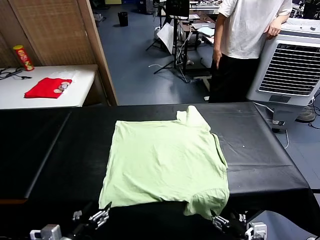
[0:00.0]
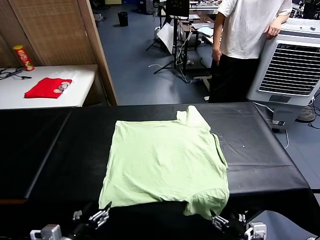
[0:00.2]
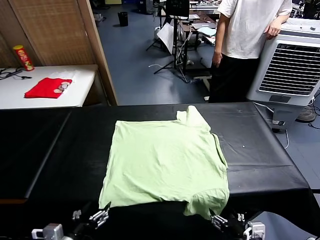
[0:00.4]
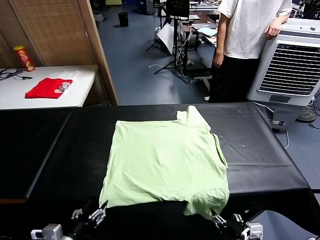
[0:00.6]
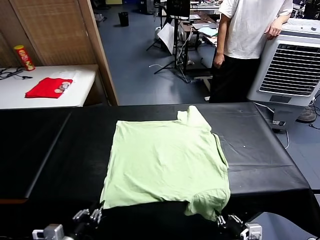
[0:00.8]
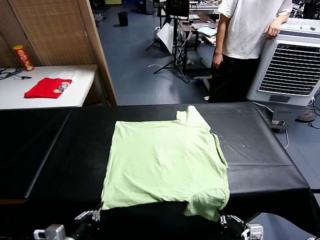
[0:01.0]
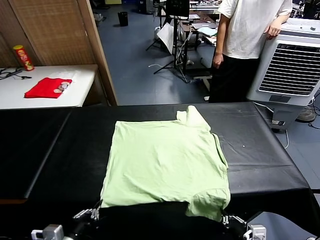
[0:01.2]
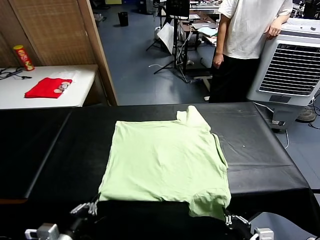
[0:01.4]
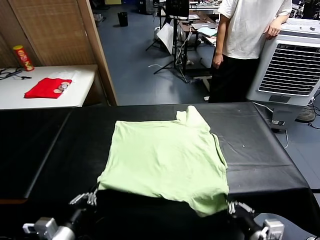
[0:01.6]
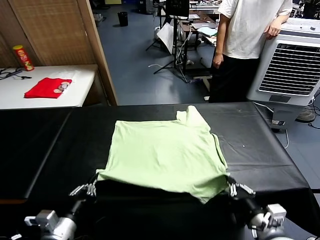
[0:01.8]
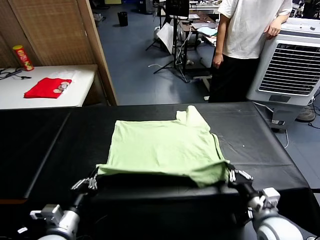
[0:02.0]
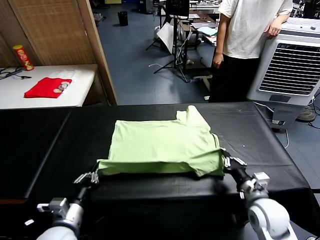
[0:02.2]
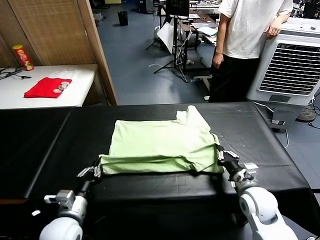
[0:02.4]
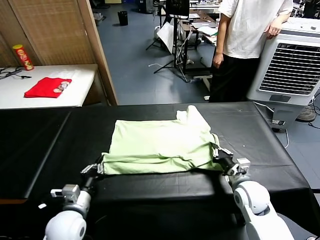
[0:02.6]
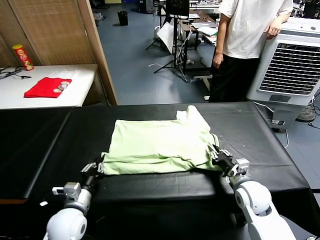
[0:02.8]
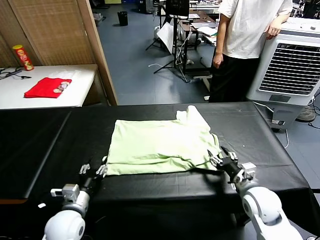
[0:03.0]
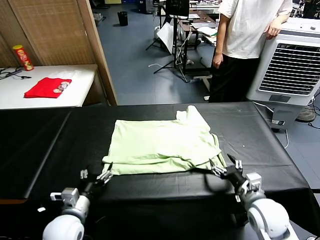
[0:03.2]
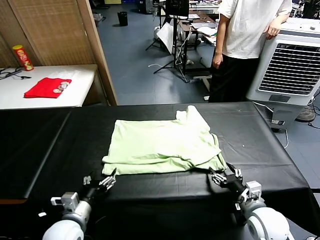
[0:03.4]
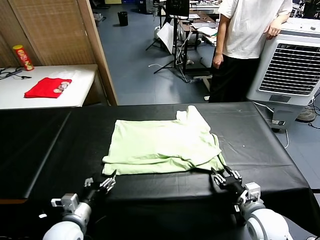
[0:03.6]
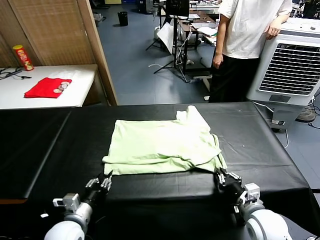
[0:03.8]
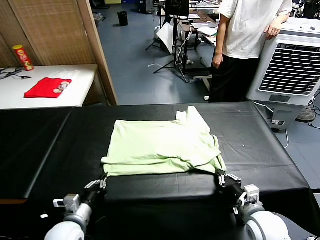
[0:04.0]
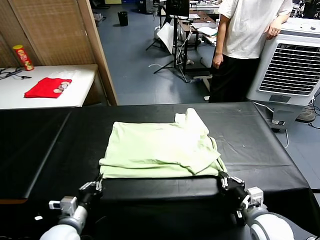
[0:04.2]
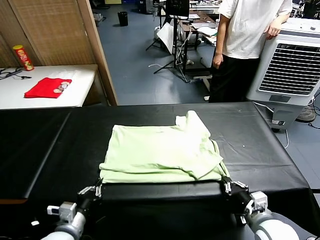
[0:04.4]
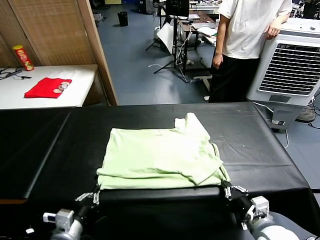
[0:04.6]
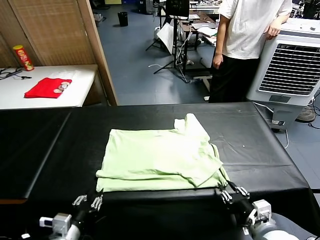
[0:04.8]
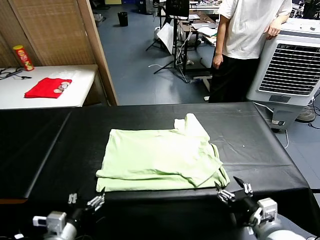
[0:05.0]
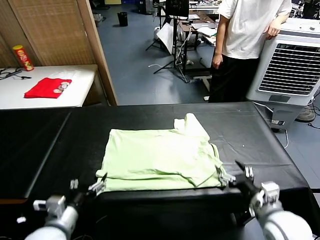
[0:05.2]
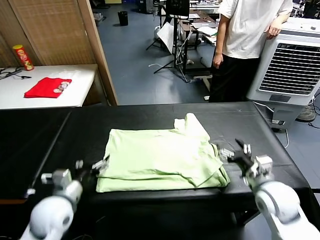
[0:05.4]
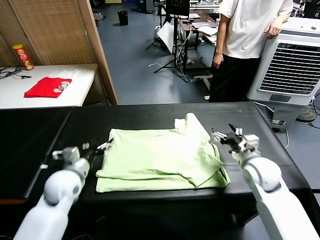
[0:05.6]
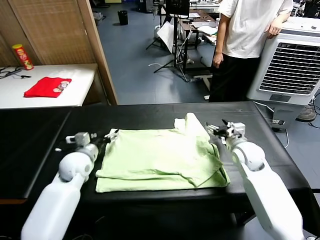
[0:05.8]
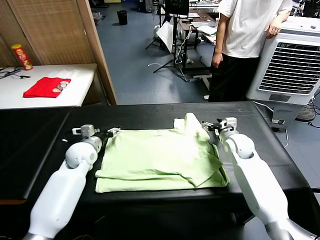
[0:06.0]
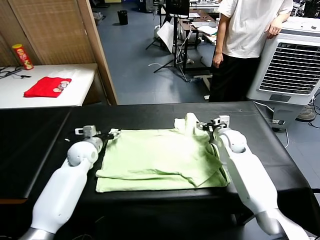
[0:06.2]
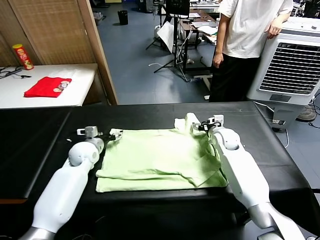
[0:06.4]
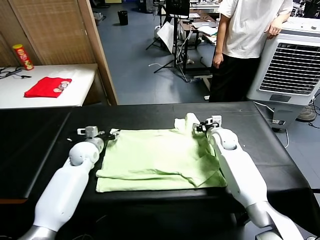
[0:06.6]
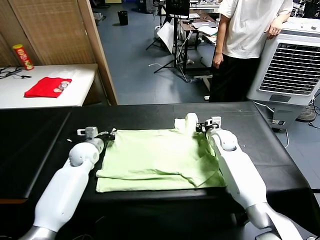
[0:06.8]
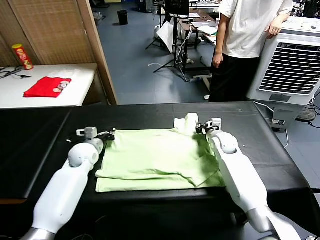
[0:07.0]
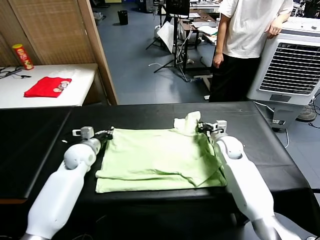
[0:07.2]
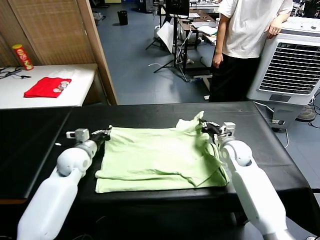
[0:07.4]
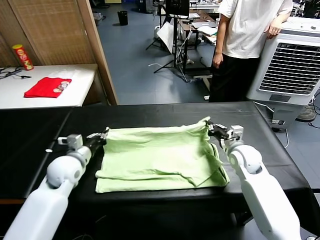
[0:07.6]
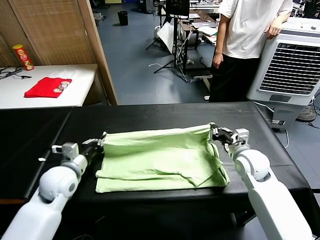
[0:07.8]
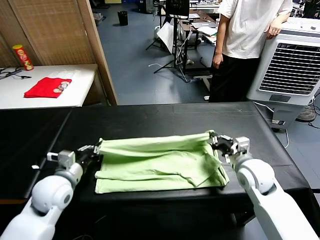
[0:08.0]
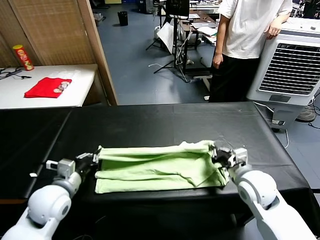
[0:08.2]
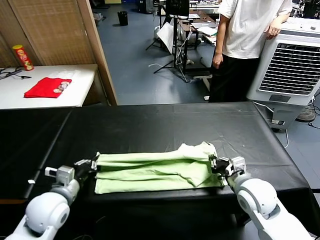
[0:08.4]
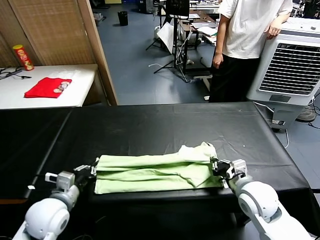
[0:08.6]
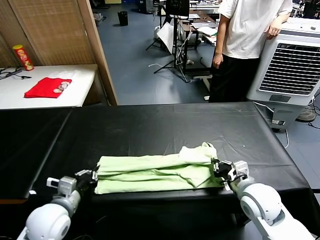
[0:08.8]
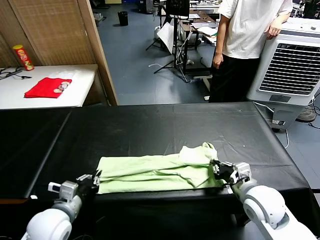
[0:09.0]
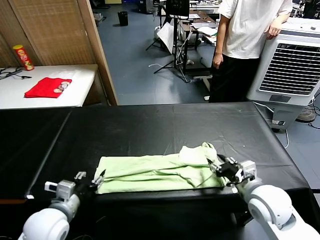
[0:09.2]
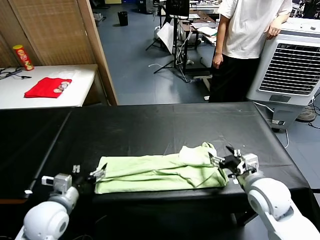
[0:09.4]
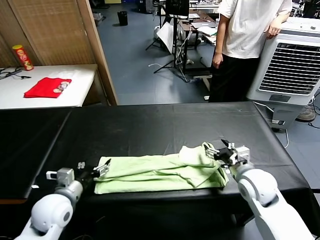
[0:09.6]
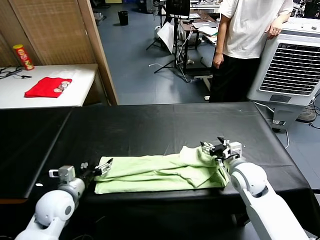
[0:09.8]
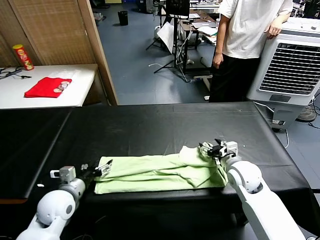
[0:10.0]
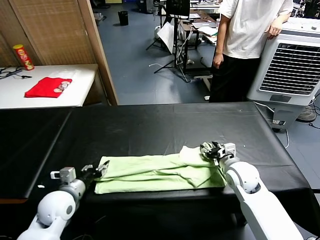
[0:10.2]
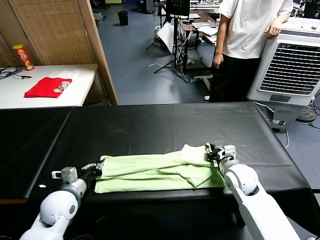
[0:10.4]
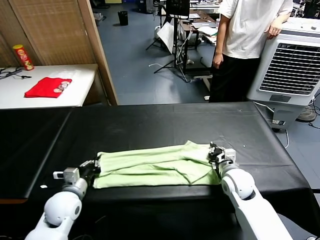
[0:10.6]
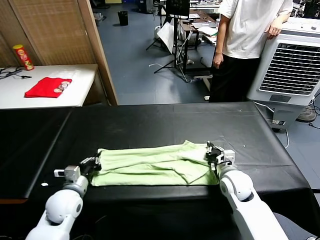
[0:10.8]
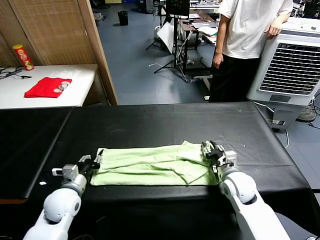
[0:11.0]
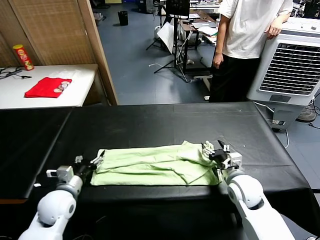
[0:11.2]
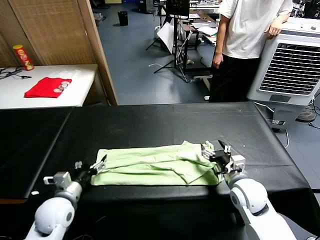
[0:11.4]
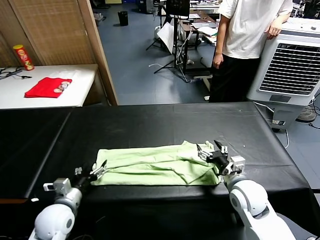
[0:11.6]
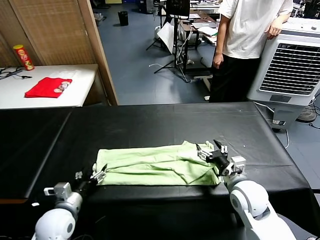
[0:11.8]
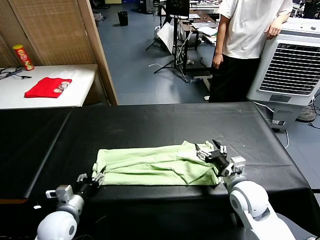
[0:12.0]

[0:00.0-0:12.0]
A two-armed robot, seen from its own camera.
Task of the whole recording: fold and organize the clothes.
Step, 0:00.0 to 0:01.0: use both grippers simultaneously to clamp the lower edge of the clothing fabric.
Step, 0:01.2 to 0:02.8: use both grippers to drag the lower edge of the fabric forward and fold it over the upper edge.
Step, 0:03.0 to 0:04.8: Drag the clothes downward with both gripper.
Step, 0:05.0 to 0:06.8: use both grippers simultaneously to clamp the upper edge of the clothing fabric.
Step, 0:07.0 to 0:09.2: use both grippers to drag the upper edge of the fabric backward and fold it over the lower edge.
0:01.6 to 0:03.0: The right gripper goes approximately 10 cm forward, and opens; the left gripper goes roughly 10 cm forward and downward, and opens.
0:03.0 to 0:04.4: The two grippers go approximately 5 cm backward. The left gripper closes. Meanwhile the right gripper closes its fingers.
0:04.4 to 0:06.0: Both grippers travel together forward, roughly 30 cm. The right gripper opens its fingers. Meanwhile the left gripper opens its fingers.
0:06.0 to 0:07.6: The two grippers go some 10 cm backward. The right gripper closes, while the left gripper closes up.
0:07.6 to 0:09.0: The two grippers go about 15 cm backward. The right gripper opens up.
0:09.0 to 0:10.4: The left gripper shifts about 5 cm forward, and opens, then closes once more. The right gripper shifts approximately 15 cm forward and downward, and closes up.
0:10.4 to 0:12.0: The two grippers go approximately 5 cm backward. The right gripper opens its fingers. Meanwhile the left gripper opens.

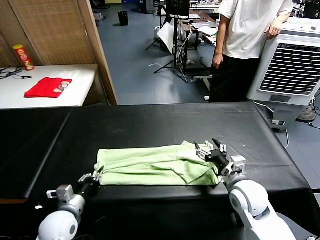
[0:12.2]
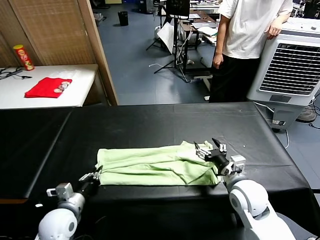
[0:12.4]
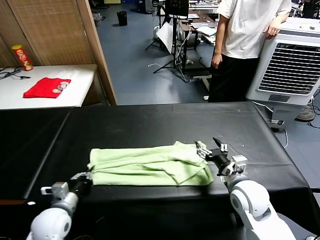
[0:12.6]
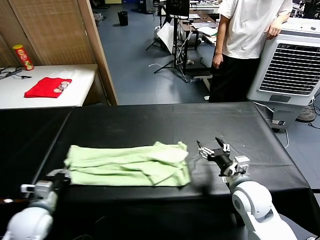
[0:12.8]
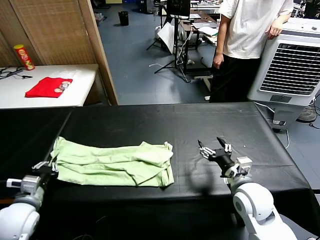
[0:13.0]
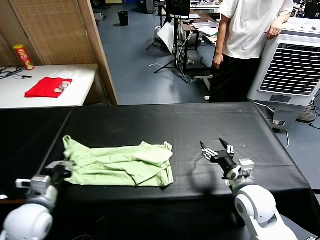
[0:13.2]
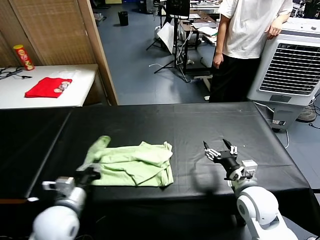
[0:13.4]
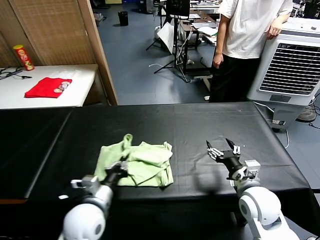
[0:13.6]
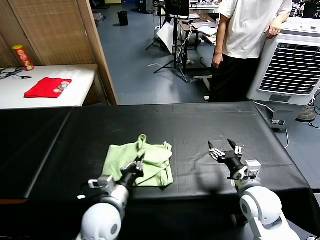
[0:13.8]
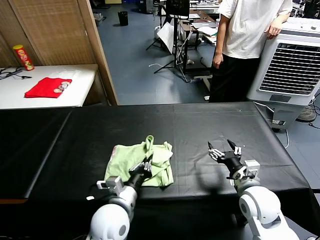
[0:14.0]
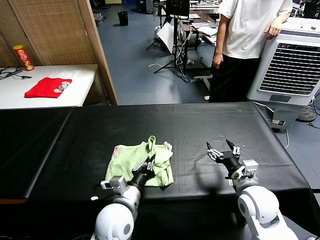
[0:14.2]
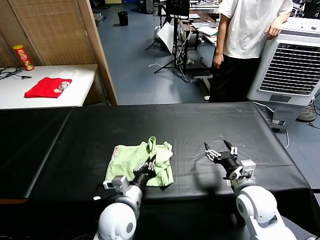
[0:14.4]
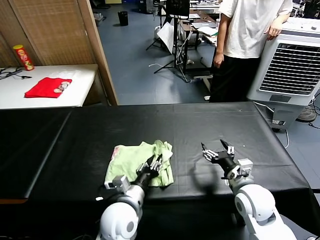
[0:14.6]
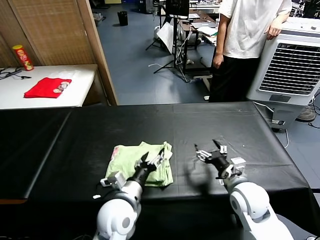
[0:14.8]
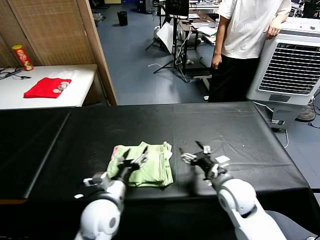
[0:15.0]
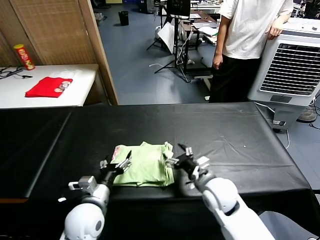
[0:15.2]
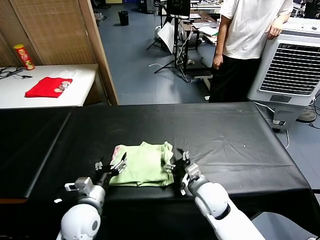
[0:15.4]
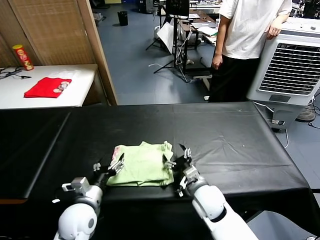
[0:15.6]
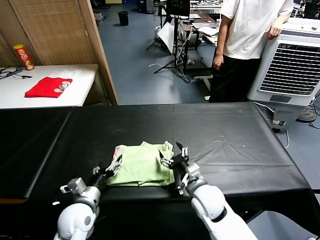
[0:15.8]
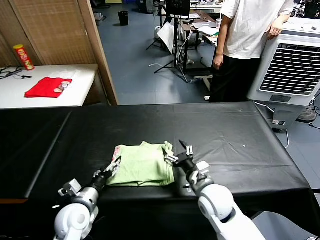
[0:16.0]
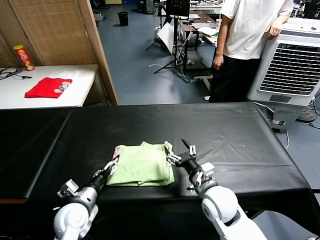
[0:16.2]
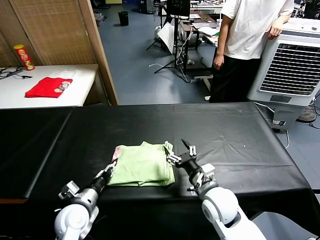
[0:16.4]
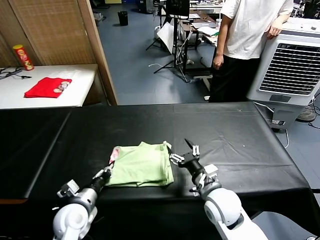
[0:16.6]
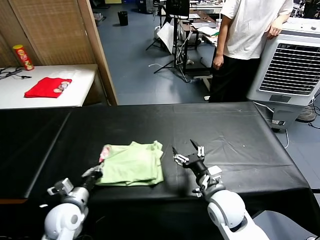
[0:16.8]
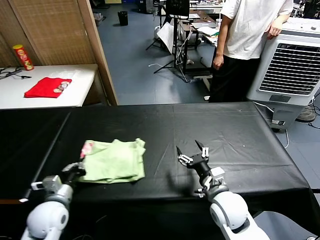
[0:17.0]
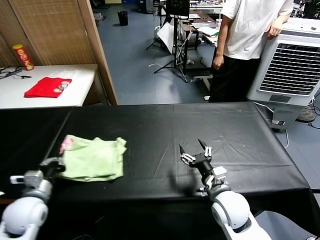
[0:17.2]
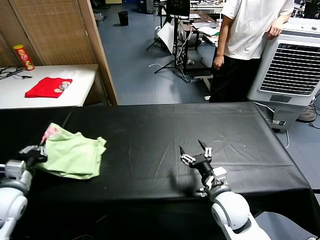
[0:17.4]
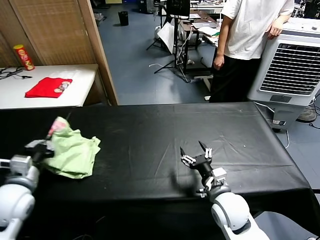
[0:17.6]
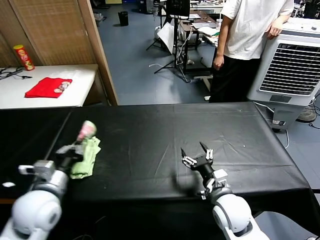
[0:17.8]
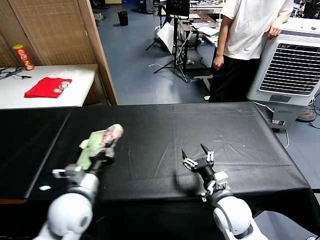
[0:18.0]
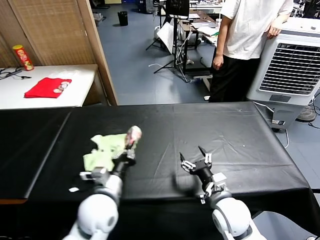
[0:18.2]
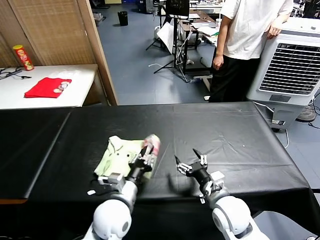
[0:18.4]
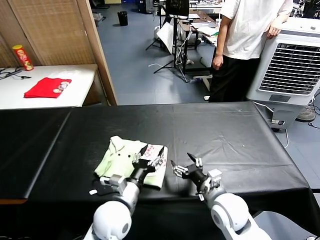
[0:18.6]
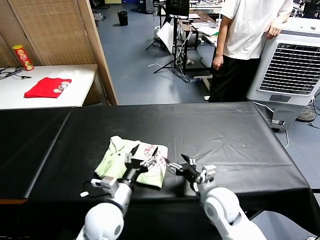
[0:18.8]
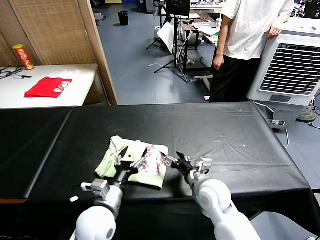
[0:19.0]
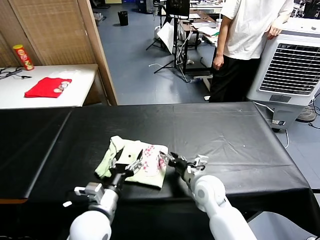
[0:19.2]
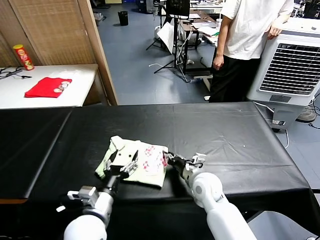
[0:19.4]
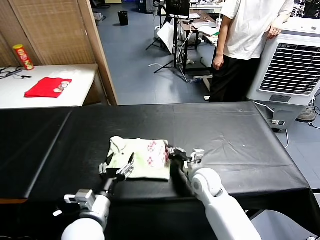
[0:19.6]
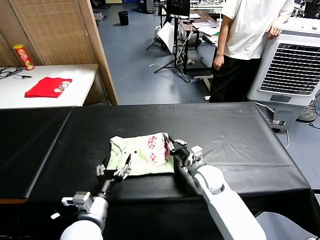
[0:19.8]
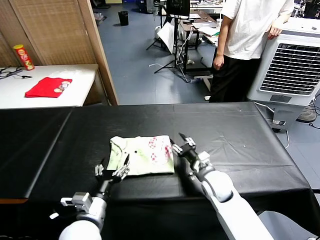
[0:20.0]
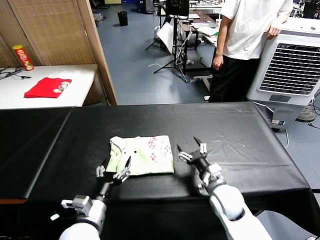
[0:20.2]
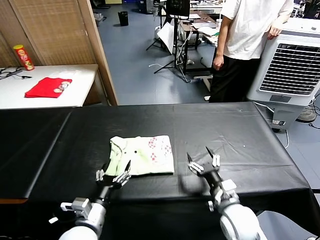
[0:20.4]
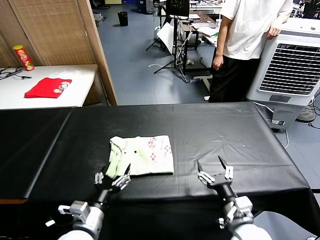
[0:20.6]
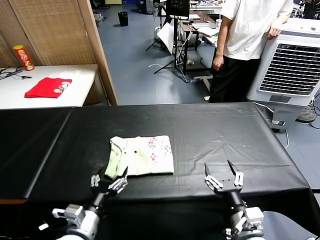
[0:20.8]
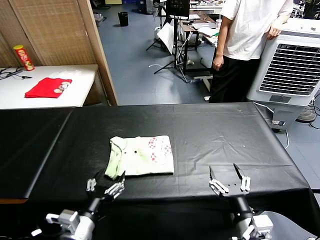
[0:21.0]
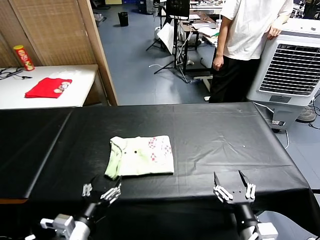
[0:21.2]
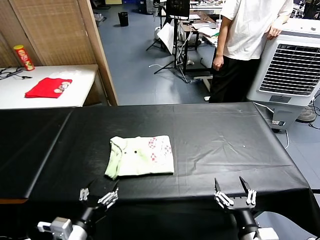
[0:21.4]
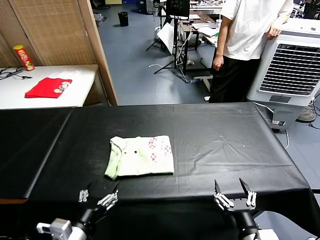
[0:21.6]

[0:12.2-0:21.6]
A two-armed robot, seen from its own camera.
Task of the whole recording: fold and organize the clothes.
Step, 0:12.6 to 0:14.8: use the left gripper to drag the left edge of the fabric to the left and folds it over the right edge.
Step, 0:15.0 to 0:18.6: Flip the folded clothes over with left gripper.
Step, 0:18.8 to 0:19.8: Drag the clothes to the center of the table.
0:12.2 to 0:13.8: The left gripper goes about 15 cm to the right and upward.
0:13.8 to 0:15.4: The right gripper shifts some 15 cm to the left and downward; the left gripper moves to the left, approximately 5 cm, and opens.
0:15.4 to 0:17.0: The right gripper ends up approximately 5 cm from where it was, while the left gripper is displaced to the left by approximately 10 cm, and closes.
0:17.0 to 0:18.4: The left gripper travels to the right by some 20 cm.
0:18.4 to 0:20.0: The left gripper is displaced to the left and backward by some 10 cm, and opens up. The right gripper is displaced forward by approximately 10 cm, and closes up.
0:20.0 to 0:21.6: The left gripper is displaced backward by approximately 5 cm, while the right gripper heads backward, covering some 25 cm, and opens its fingers.
